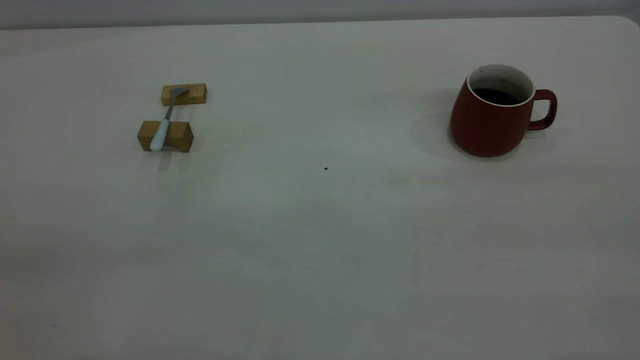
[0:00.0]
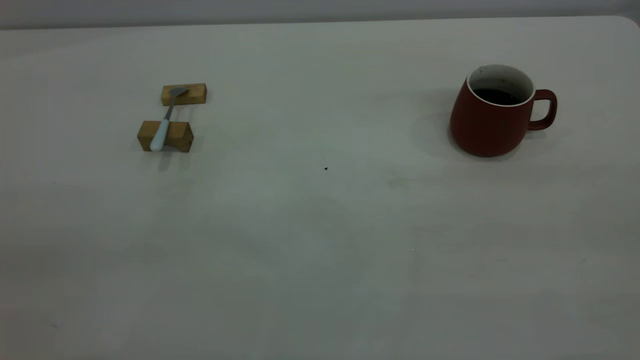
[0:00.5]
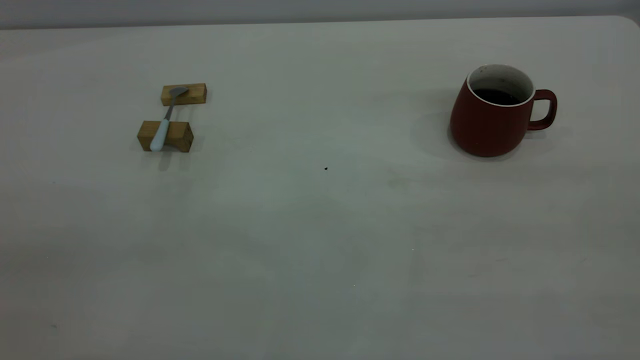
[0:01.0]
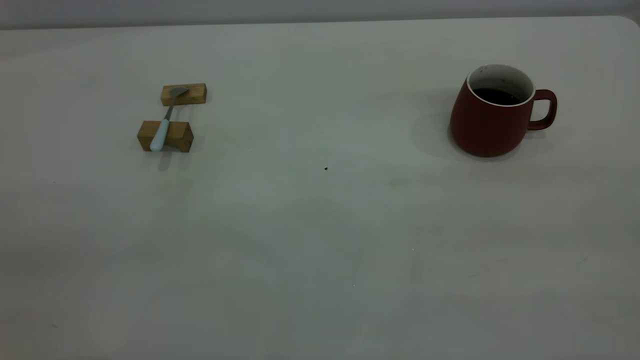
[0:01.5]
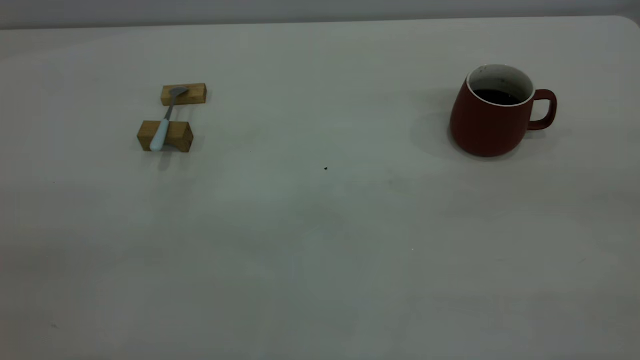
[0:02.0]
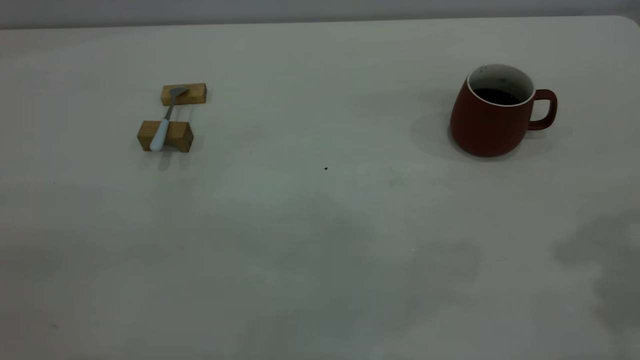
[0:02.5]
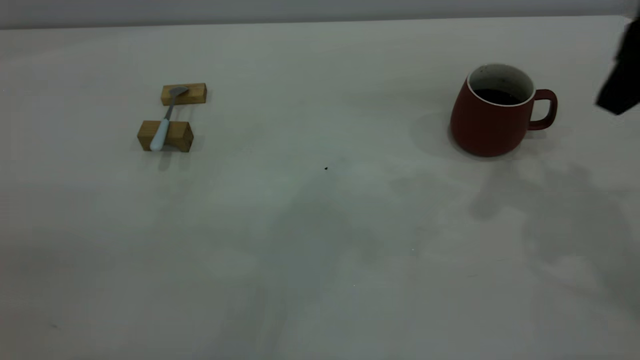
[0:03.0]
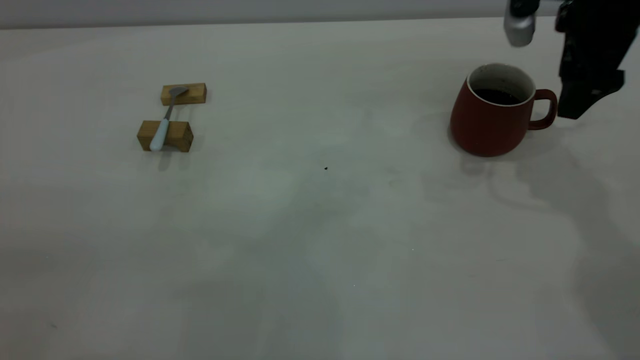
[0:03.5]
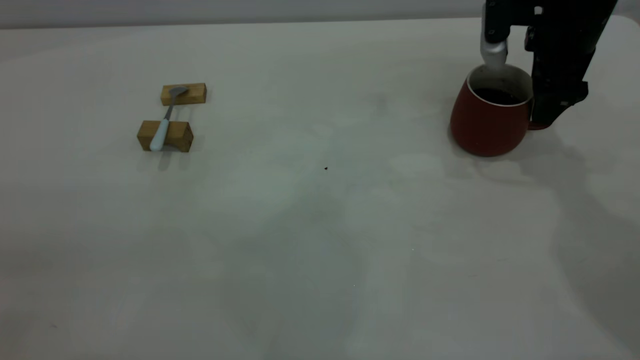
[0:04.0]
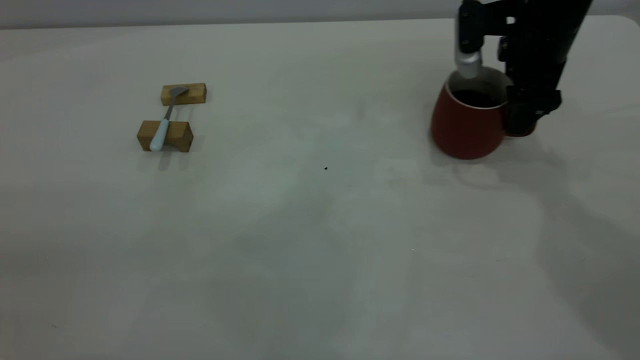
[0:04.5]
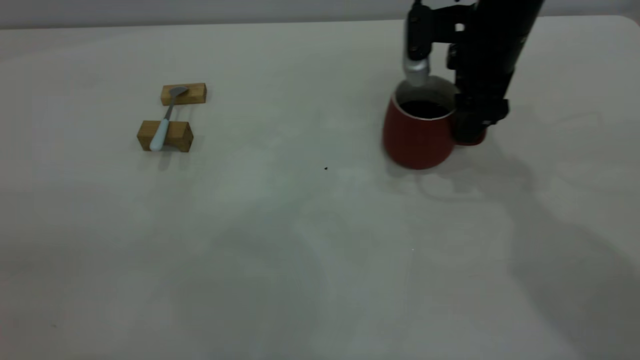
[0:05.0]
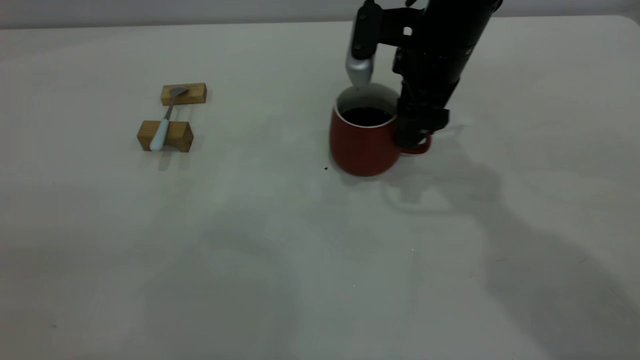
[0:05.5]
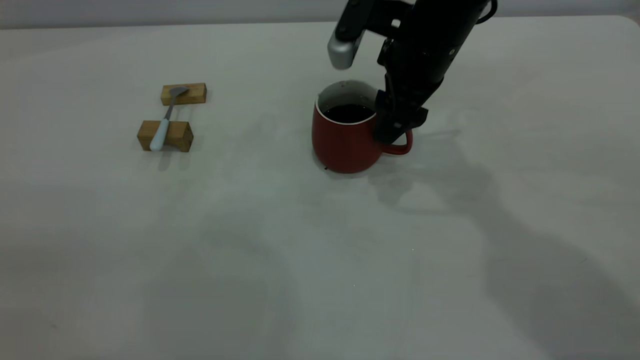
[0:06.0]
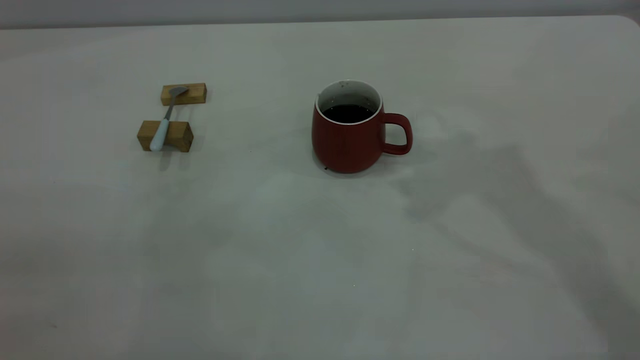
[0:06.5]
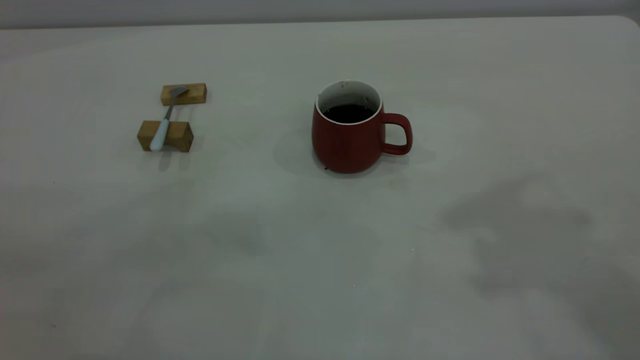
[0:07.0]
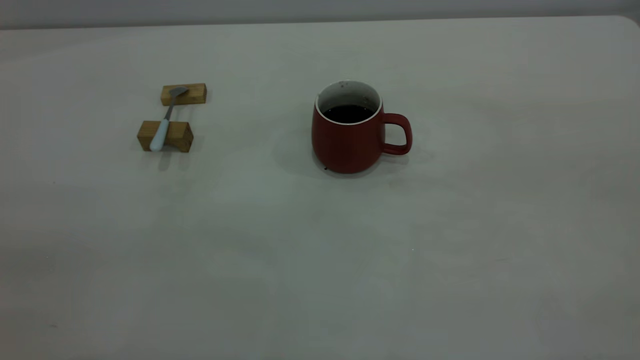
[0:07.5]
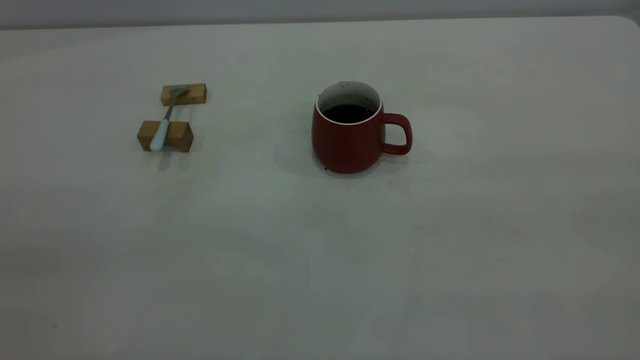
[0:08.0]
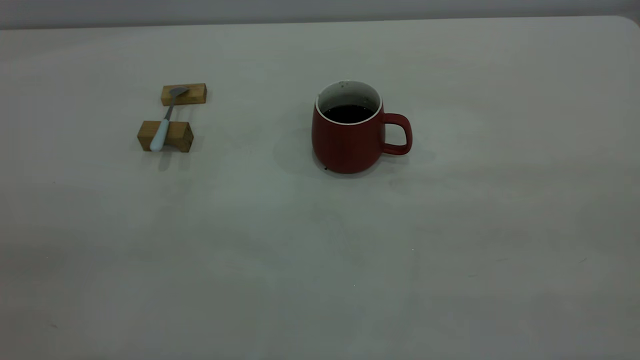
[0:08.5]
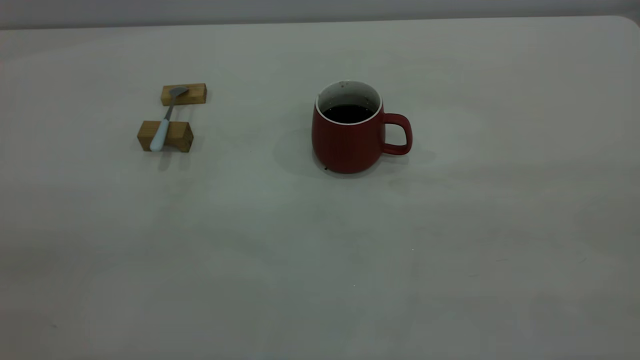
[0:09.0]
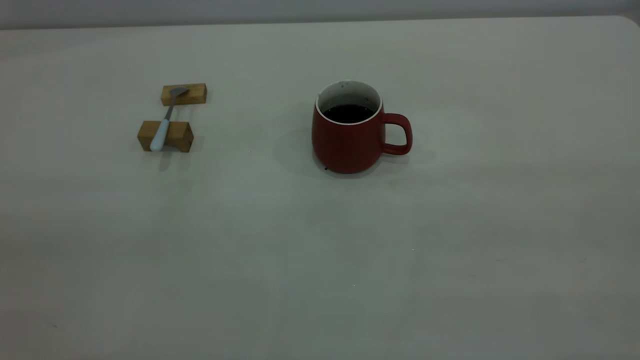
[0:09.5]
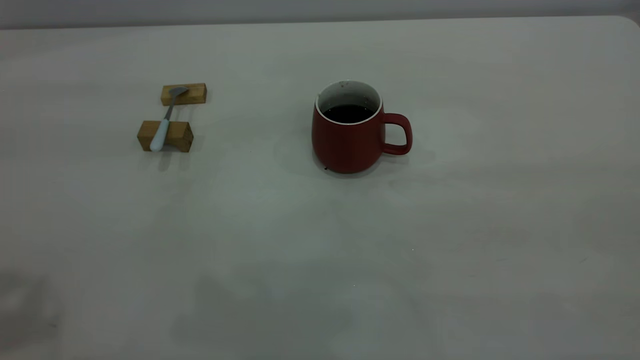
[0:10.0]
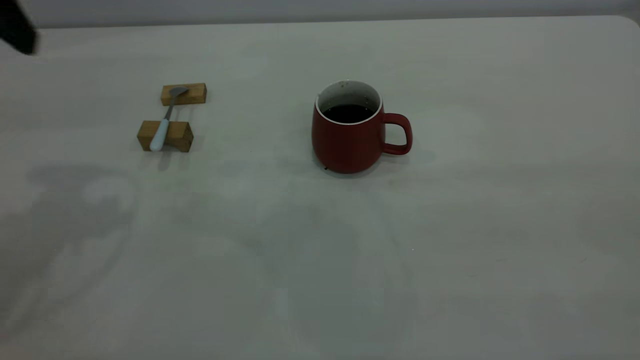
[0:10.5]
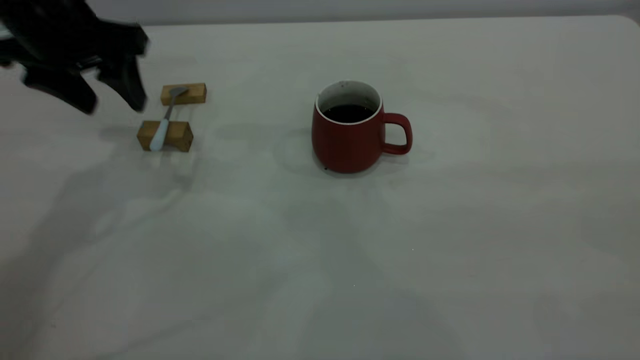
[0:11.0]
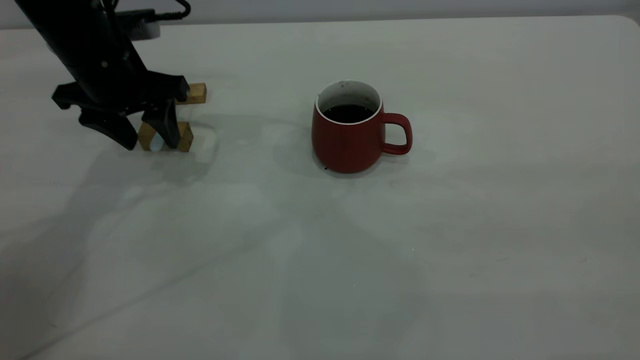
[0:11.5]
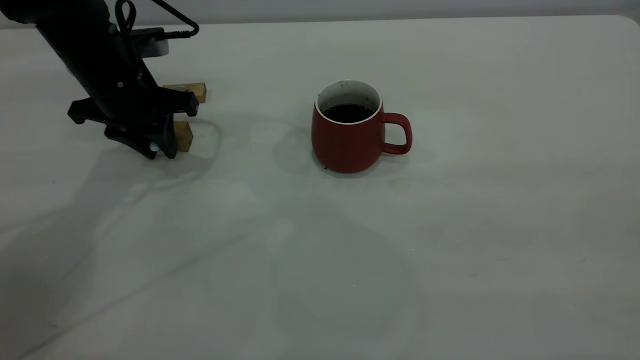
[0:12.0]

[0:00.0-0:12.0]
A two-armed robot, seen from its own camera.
Step, 0:00.0 to 0:06.0: Move the cup with coffee to the center of view.
0:02.0 to 0:04.0: The right gripper heads forward and downward, covering roughly 50 cm.
0:04.0 to 0:06.0: The right gripper moves to the left, approximately 15 cm.
0:06.0 to 0:08.0: The right gripper travels backward, upward and to the right by about 50 cm.
0:10.0 to 0:12.0: The left gripper goes roughly 35 cm downward and forward, and closes.

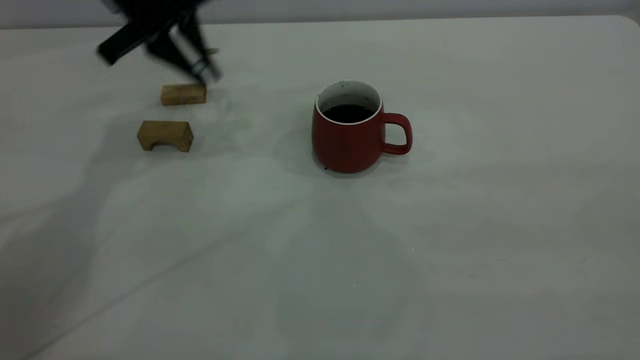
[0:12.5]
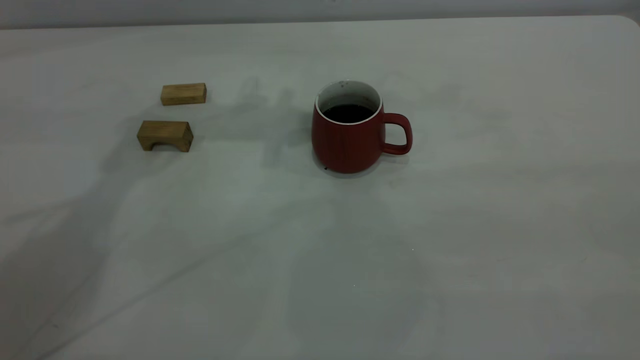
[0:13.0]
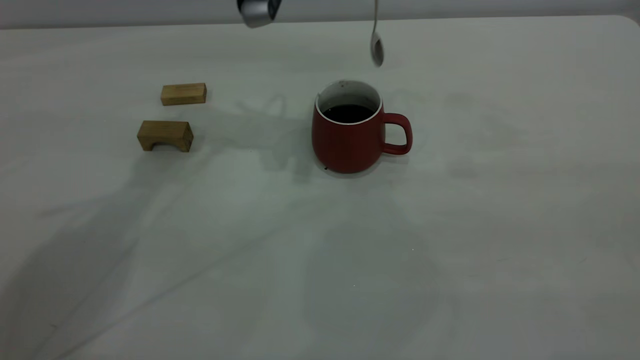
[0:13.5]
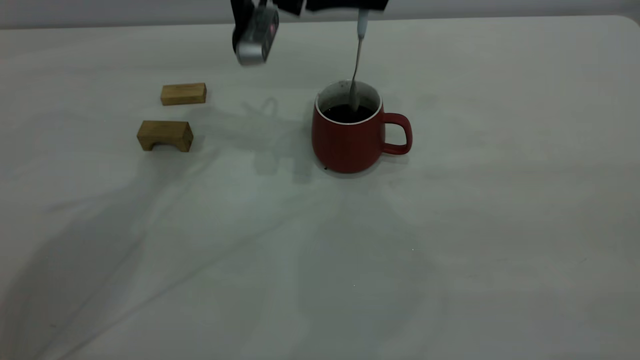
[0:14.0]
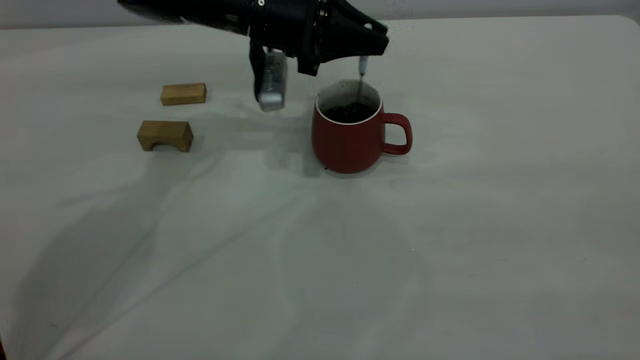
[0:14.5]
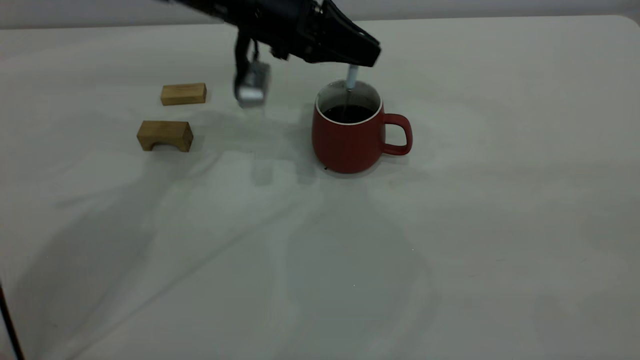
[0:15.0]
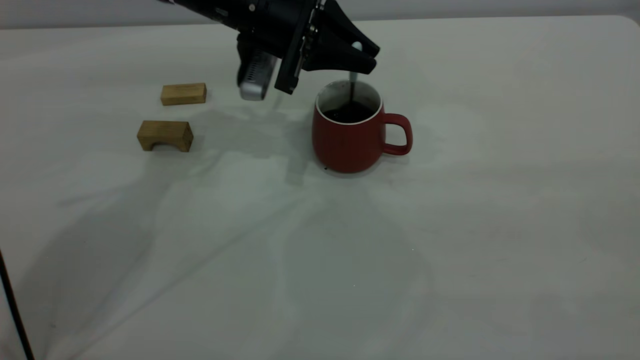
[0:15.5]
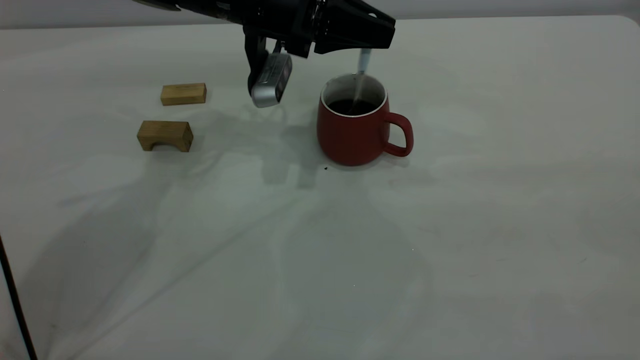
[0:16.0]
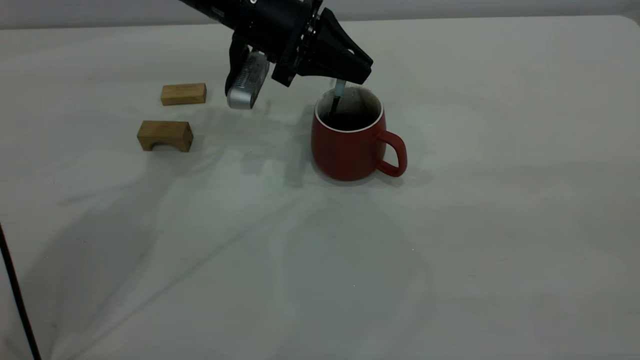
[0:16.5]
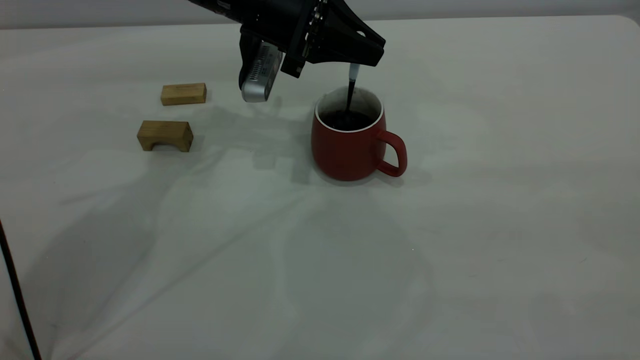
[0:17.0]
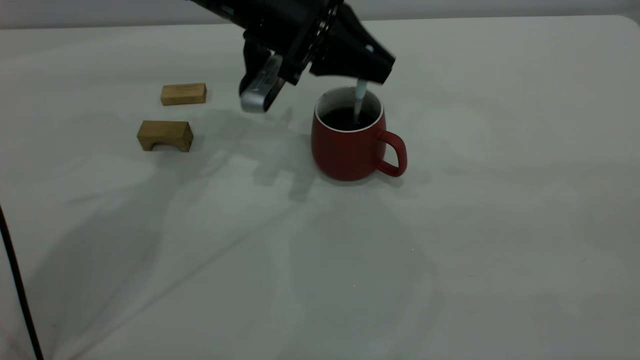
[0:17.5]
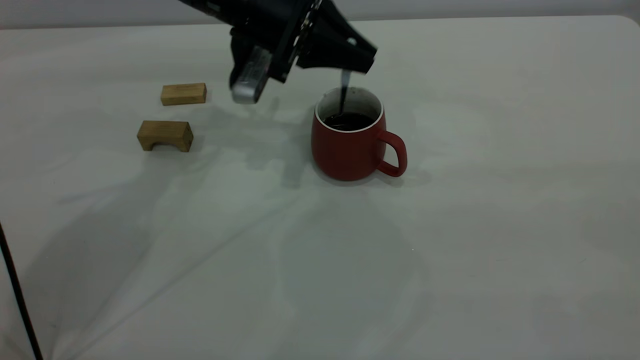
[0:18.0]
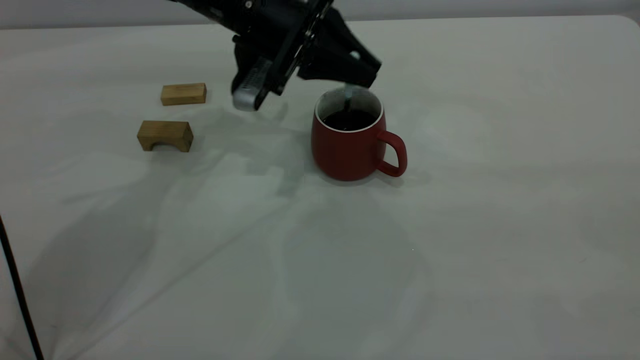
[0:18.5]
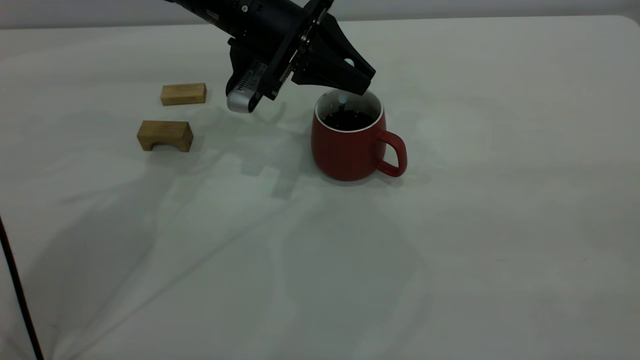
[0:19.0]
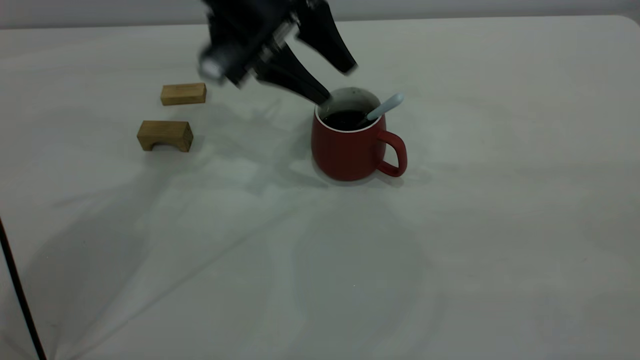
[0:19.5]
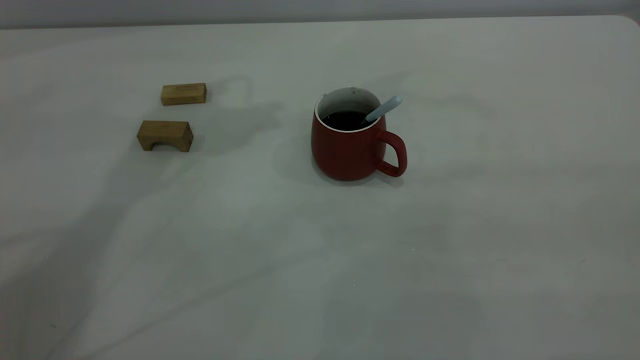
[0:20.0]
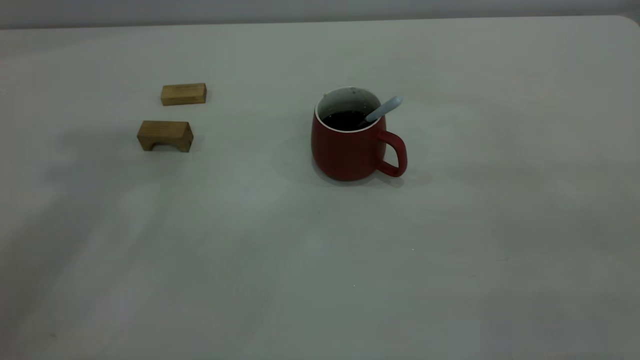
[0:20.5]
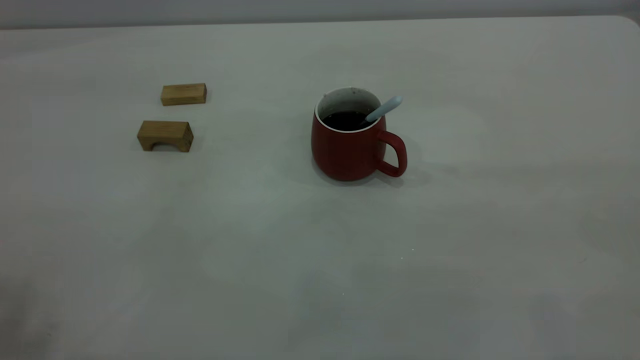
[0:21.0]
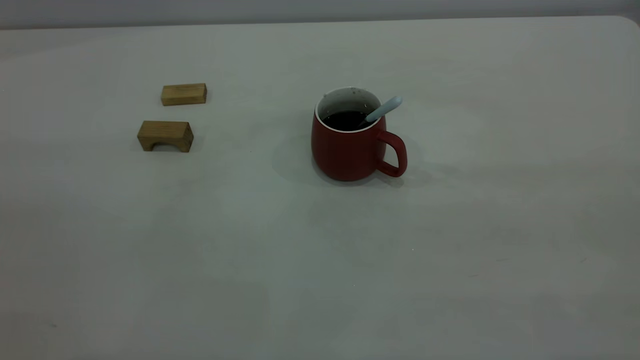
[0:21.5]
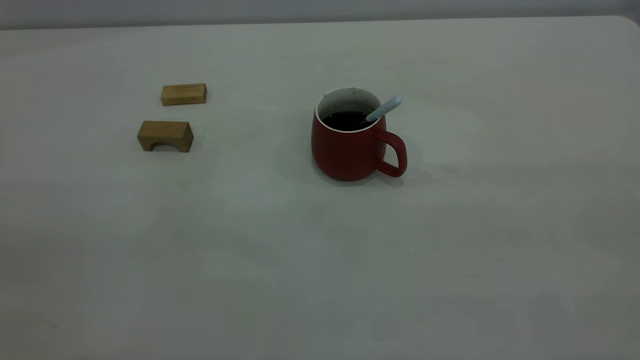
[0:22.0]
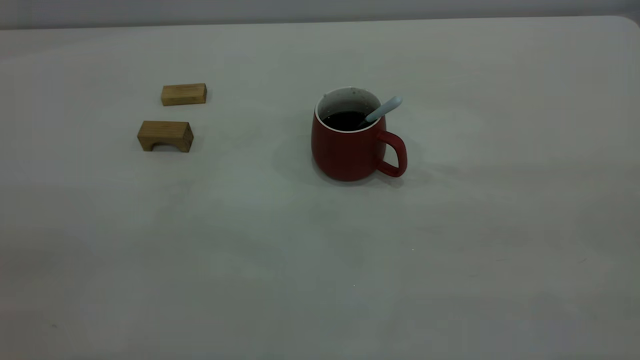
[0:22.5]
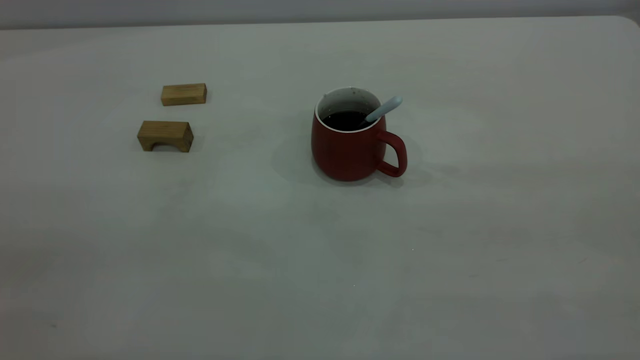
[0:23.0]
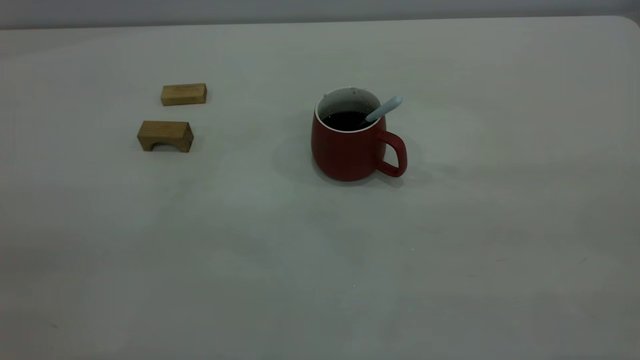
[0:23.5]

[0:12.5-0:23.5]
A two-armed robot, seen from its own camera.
Step, 0:12.5 to 0:19.5: Stir the coffee in the cup.
0:12.5 to 0:14.5: The left gripper heads to the right and downward, covering about 15 cm.
0:18.0 to 0:20.0: The left gripper moves upward, about 20 cm, and opens its fingers.
